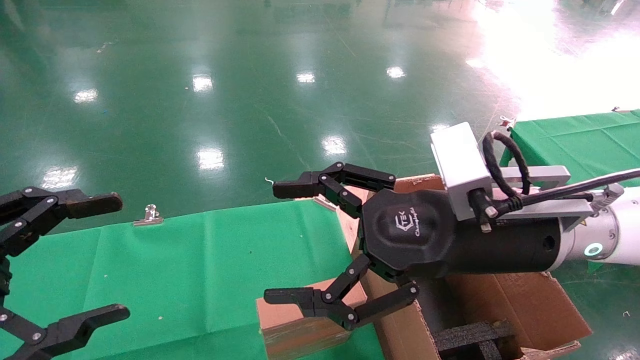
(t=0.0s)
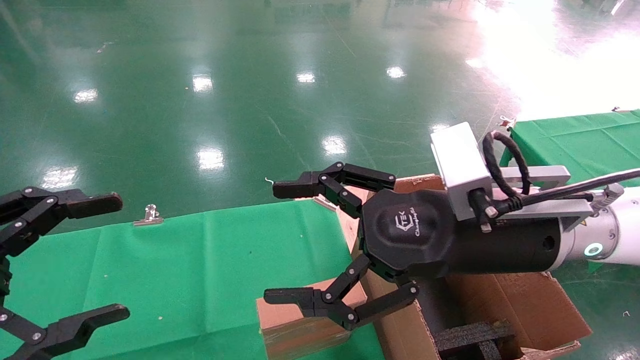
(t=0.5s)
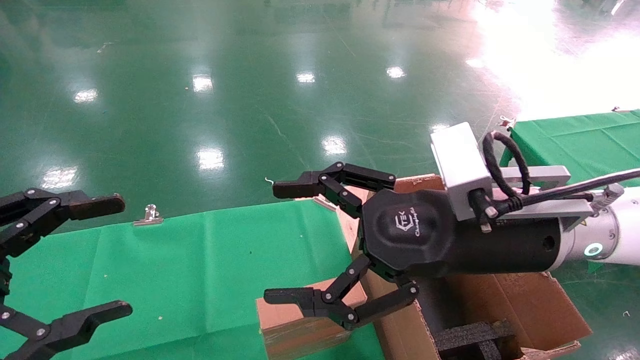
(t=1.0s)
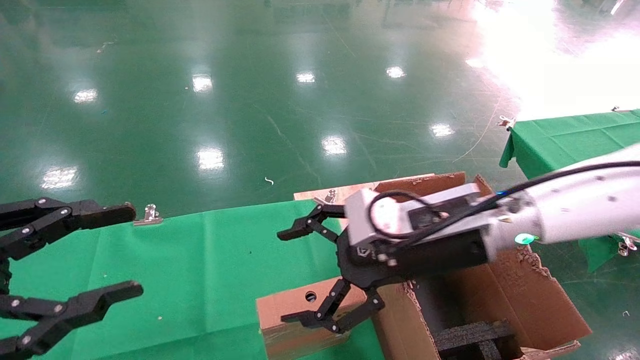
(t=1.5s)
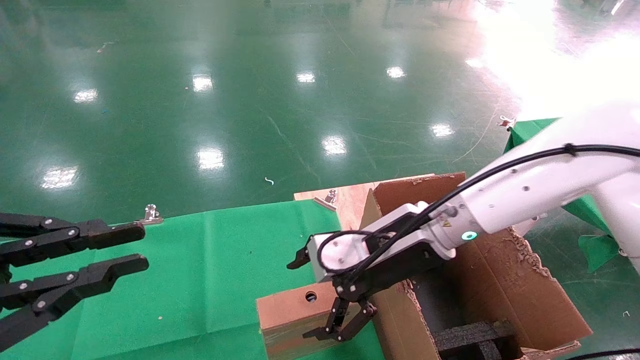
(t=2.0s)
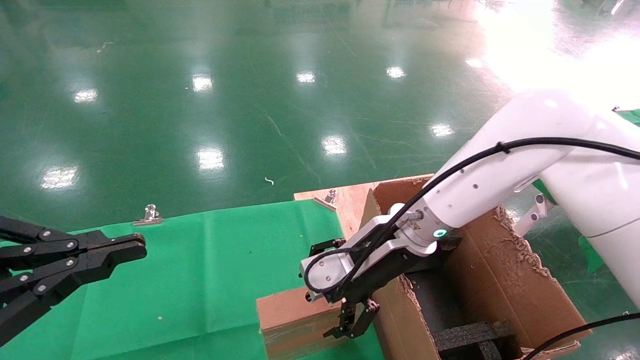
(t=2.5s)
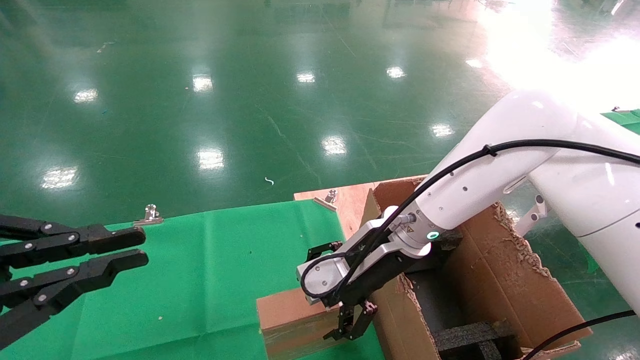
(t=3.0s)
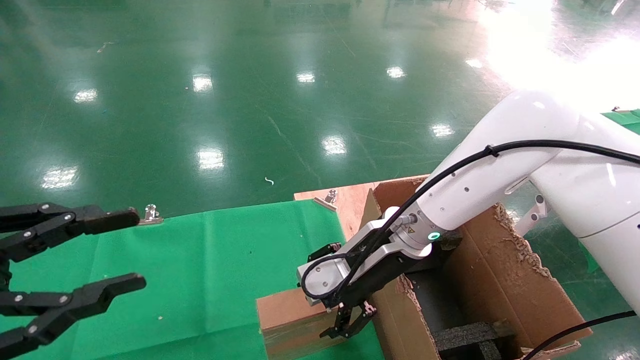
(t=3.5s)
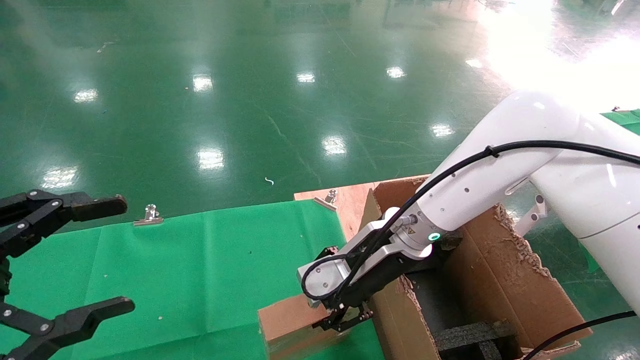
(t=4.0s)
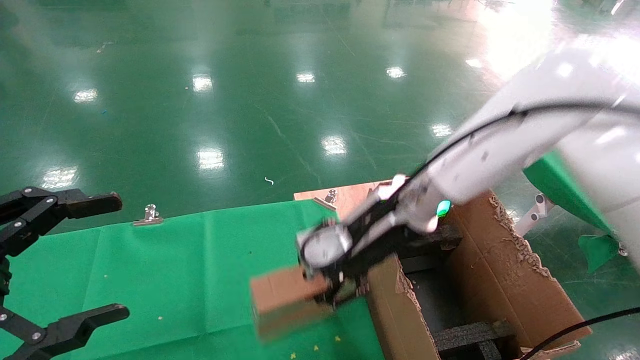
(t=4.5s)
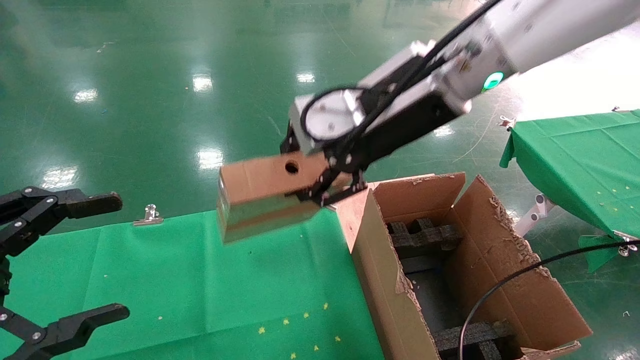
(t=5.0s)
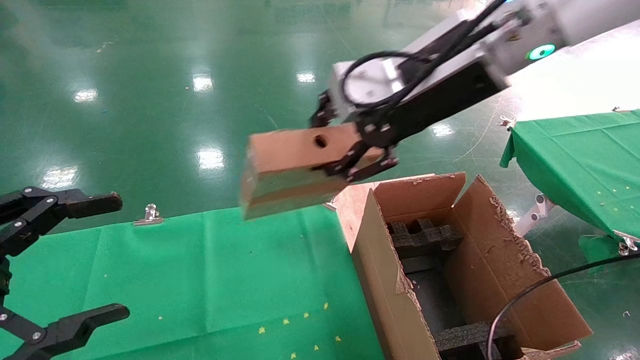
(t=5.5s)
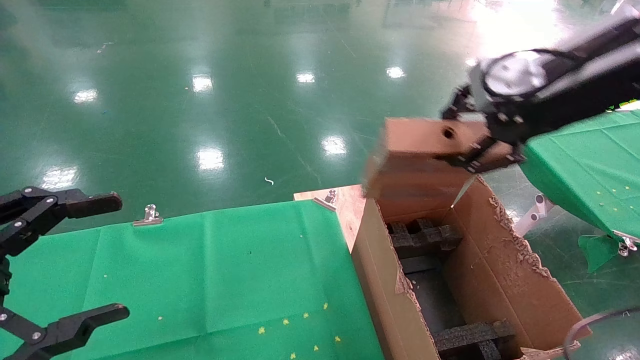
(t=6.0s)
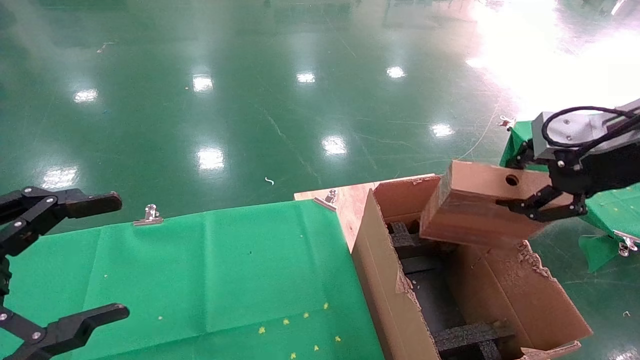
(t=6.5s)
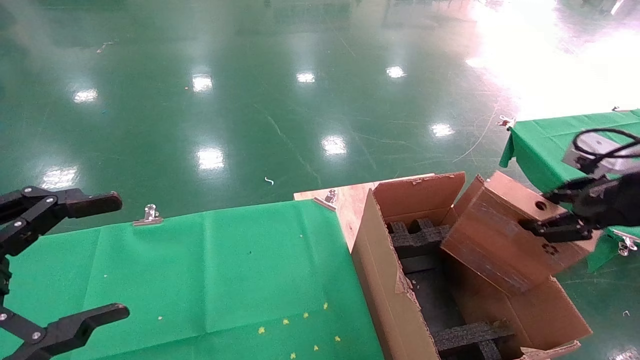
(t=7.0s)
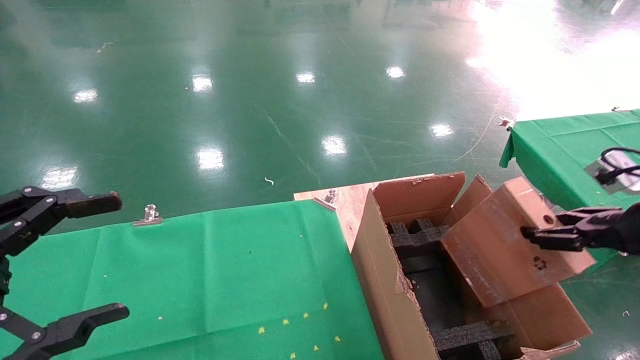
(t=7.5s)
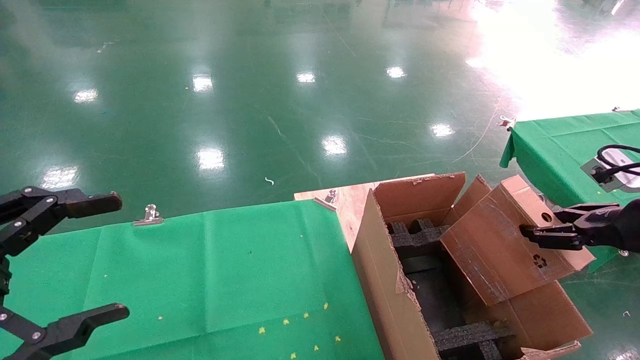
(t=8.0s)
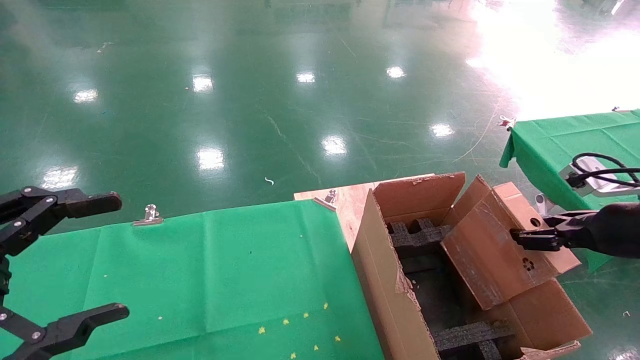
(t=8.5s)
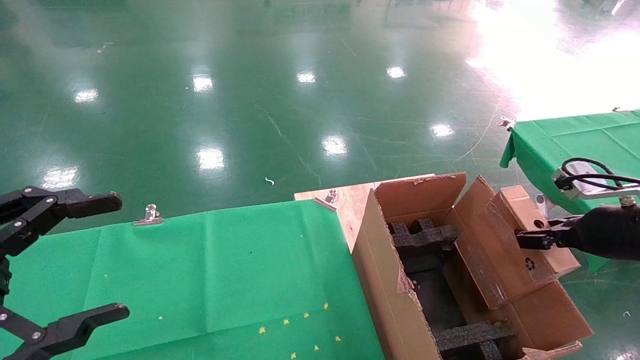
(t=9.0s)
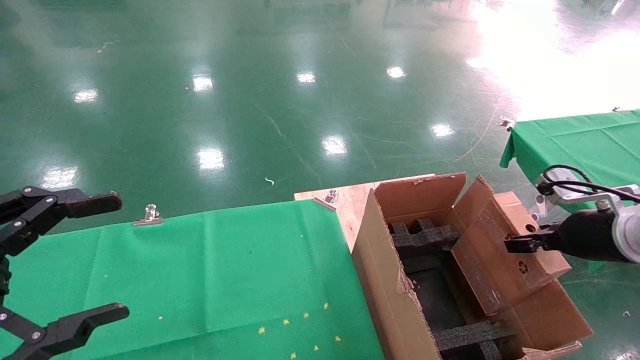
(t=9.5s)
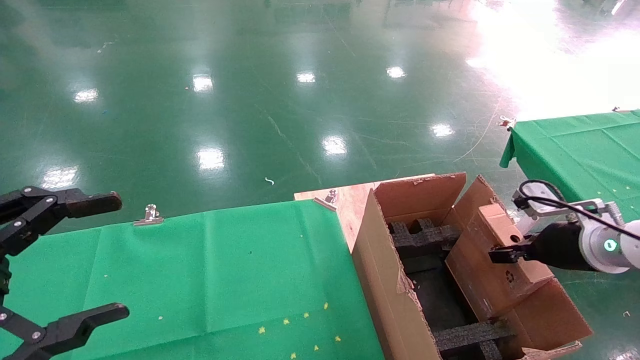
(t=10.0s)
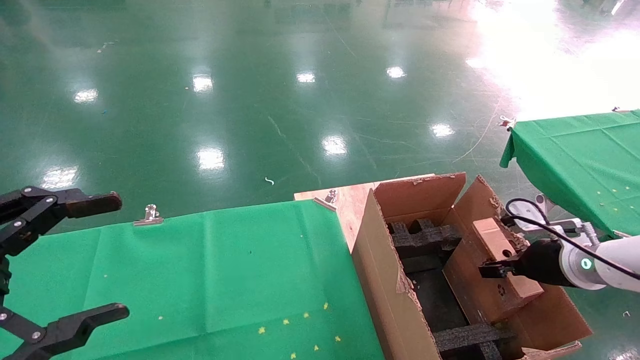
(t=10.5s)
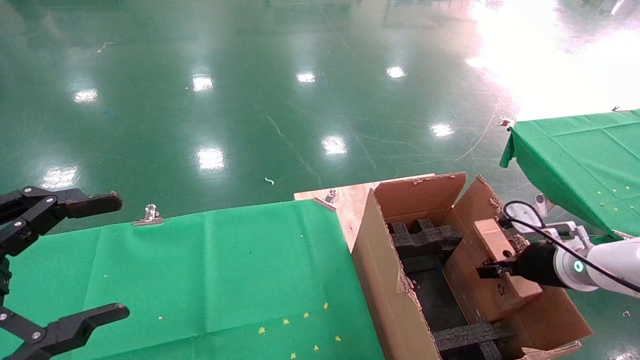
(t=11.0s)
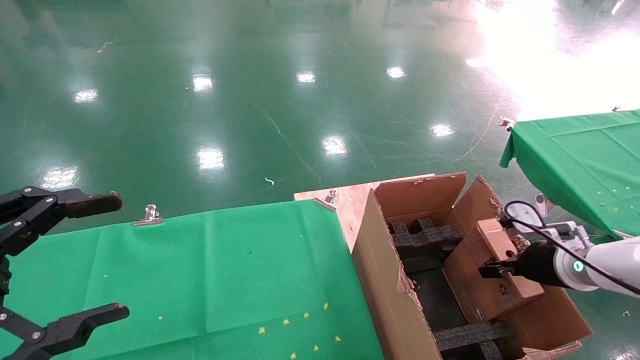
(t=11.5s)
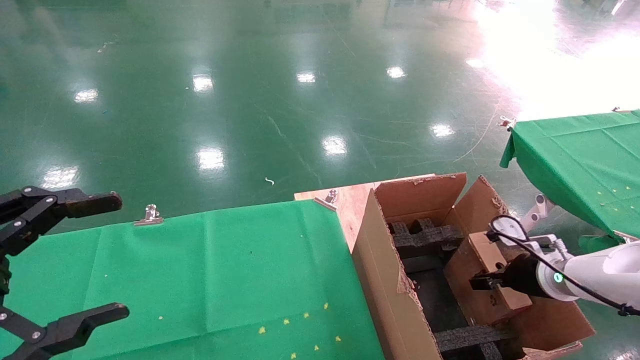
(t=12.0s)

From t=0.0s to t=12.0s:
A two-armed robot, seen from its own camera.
Task of the whole recording: using a robotic arm to pick up a cardboard box and palace it the carton.
Step, from t=1.0s to t=3.5s: Pick up the mouse and the power cord paper box.
From t=0.0s to t=2.0s: The right gripper moves forward, some 10 cm. Meanwhile the left gripper closes up.
From t=2.0s to t=4.0s: The left gripper opens up; the right gripper closes its fingers.
From t=4.0s to t=6.0s: The right gripper heads upward, to the right and backward, covering approximately 30 cm.
From t=6.0s to t=8.0s: The right gripper heads downward and to the right, covering some 25 cm.
From t=8.0s to t=10.0s: The right gripper is displaced forward and downward by some 10 cm.
From t=10.0s to t=12.0s: The right gripper travels downward by roughly 10 cm.

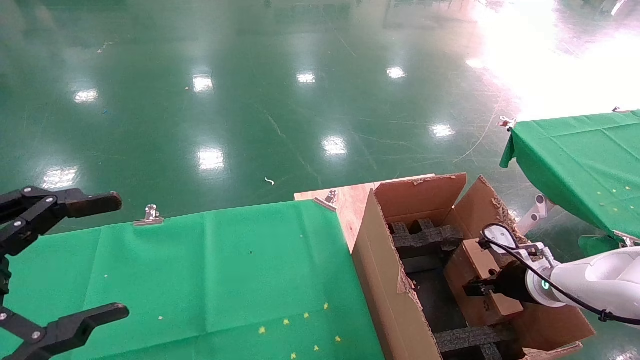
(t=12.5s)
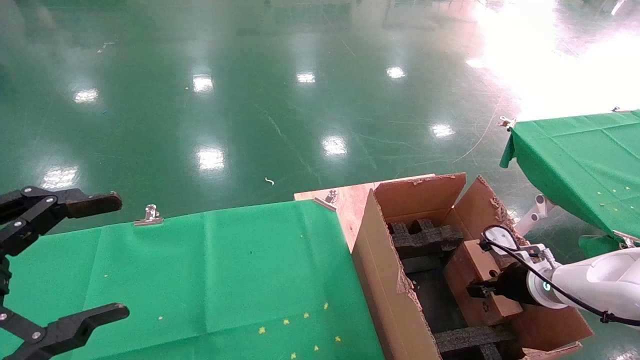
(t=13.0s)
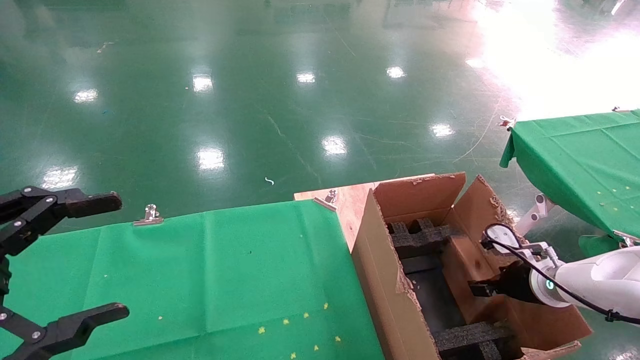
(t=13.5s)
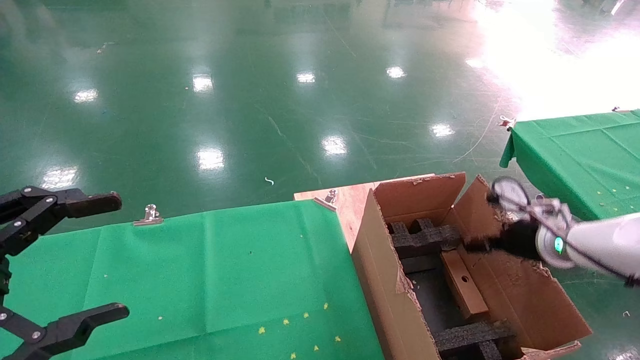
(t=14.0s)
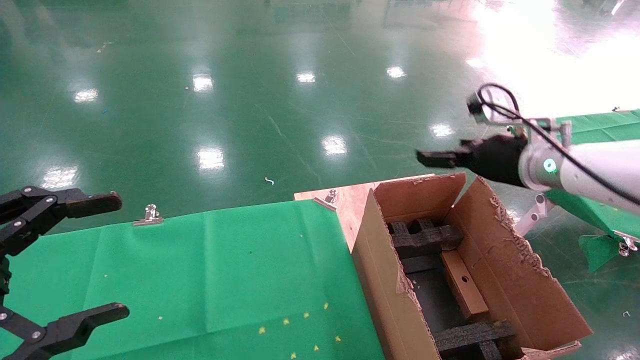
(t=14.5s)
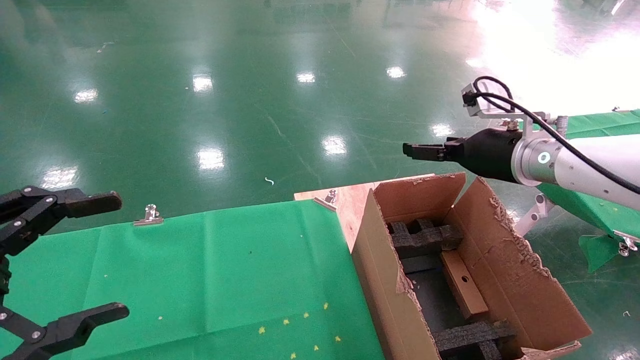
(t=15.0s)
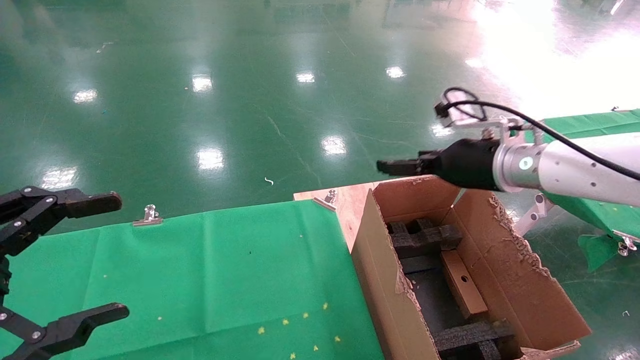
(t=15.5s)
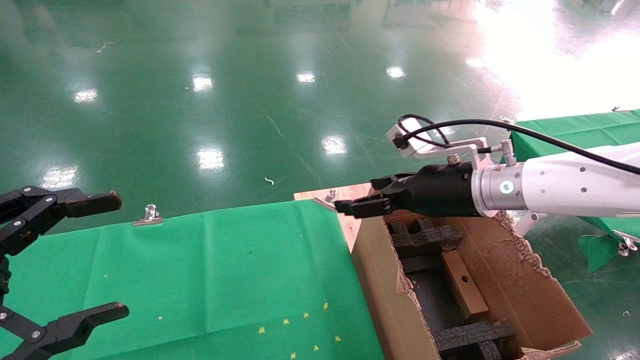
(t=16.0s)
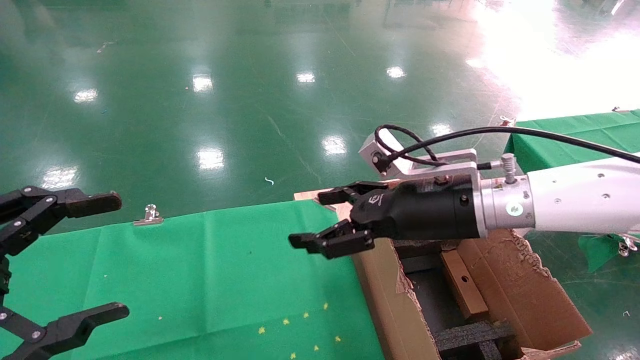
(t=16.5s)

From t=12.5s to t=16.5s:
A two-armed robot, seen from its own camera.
Task of the whole recording: using a robotic arm to pick up a cardboard box and palace it the carton.
From t=12.5s to t=14.5s: The right gripper goes approximately 20 cm upward, and opens up.
From t=14.5s to t=16.5s: The right gripper is displaced to the left and backward by about 15 cm.
